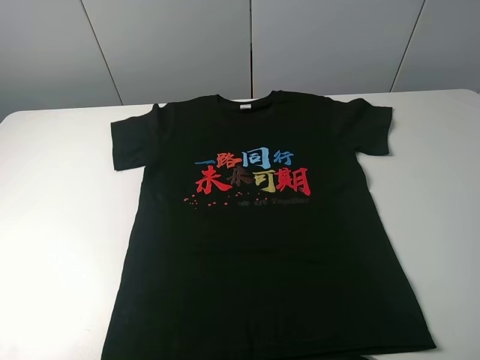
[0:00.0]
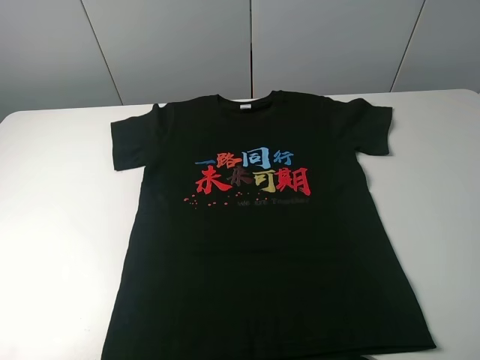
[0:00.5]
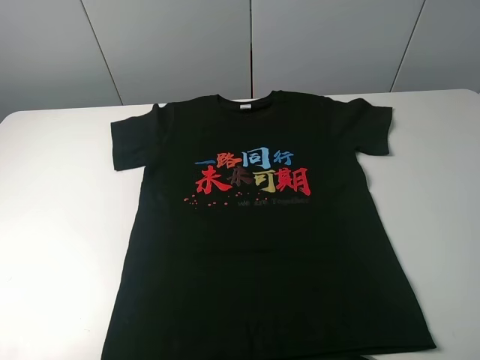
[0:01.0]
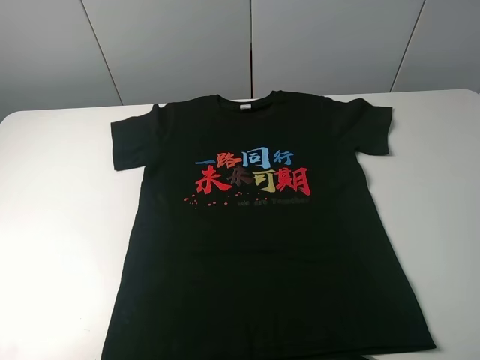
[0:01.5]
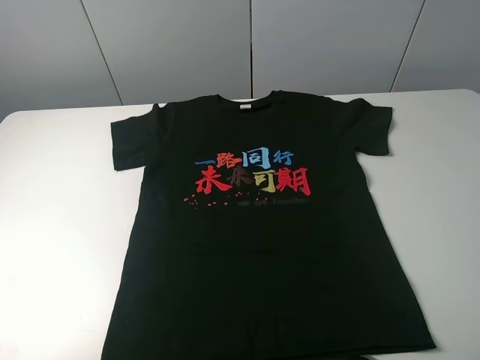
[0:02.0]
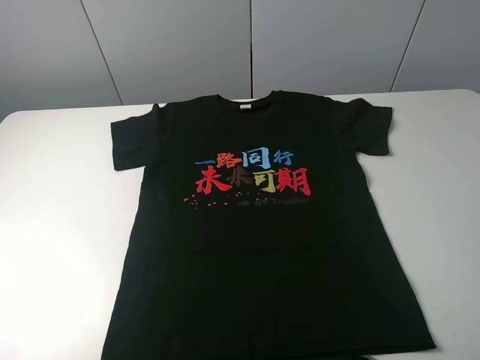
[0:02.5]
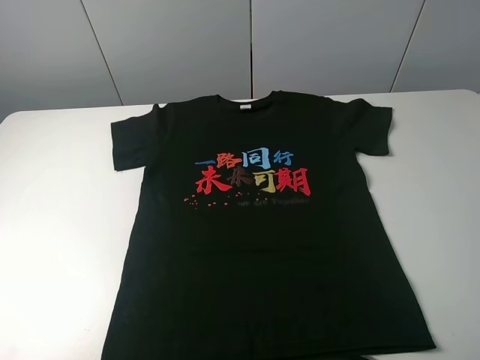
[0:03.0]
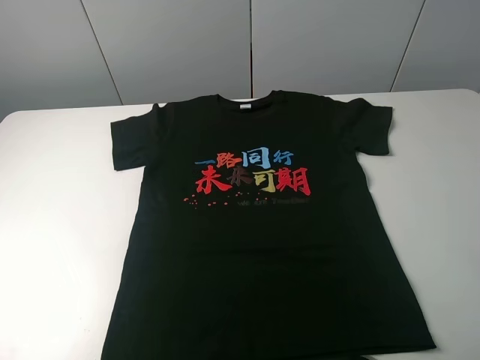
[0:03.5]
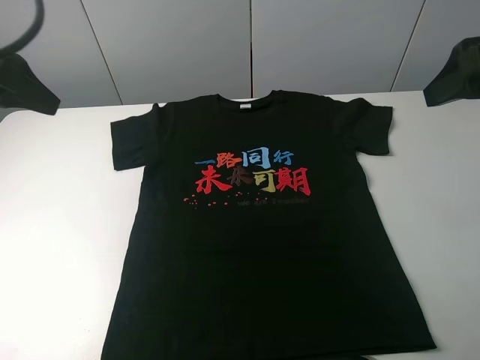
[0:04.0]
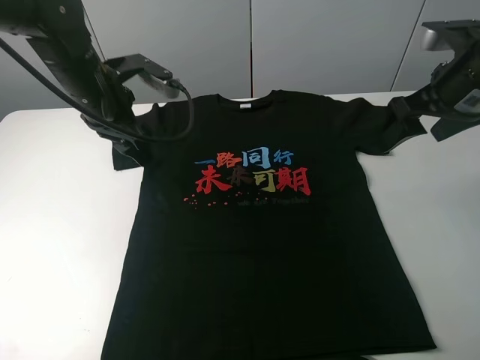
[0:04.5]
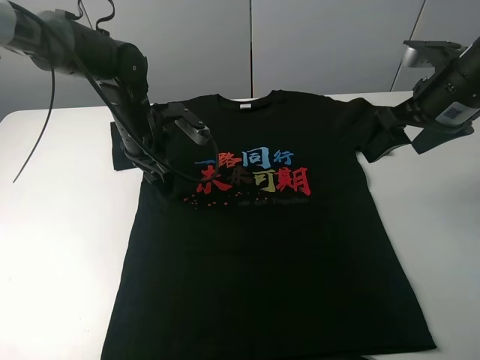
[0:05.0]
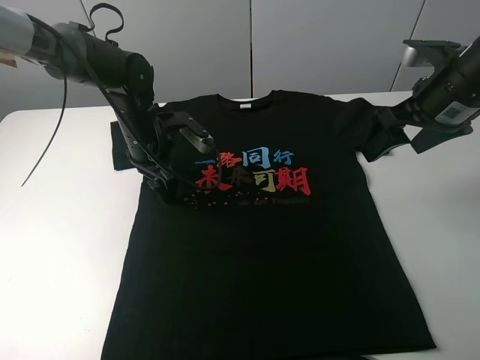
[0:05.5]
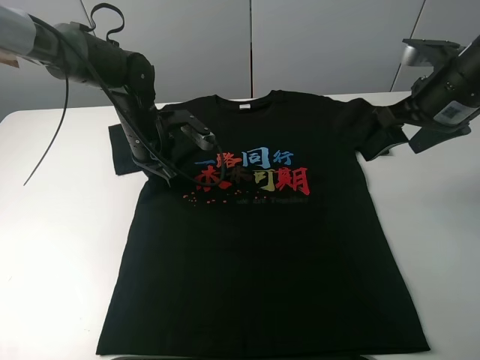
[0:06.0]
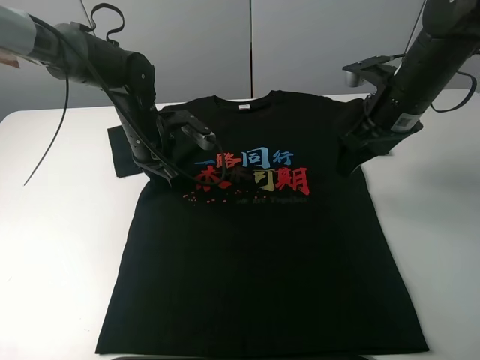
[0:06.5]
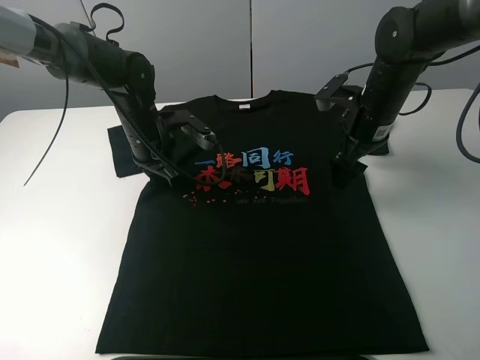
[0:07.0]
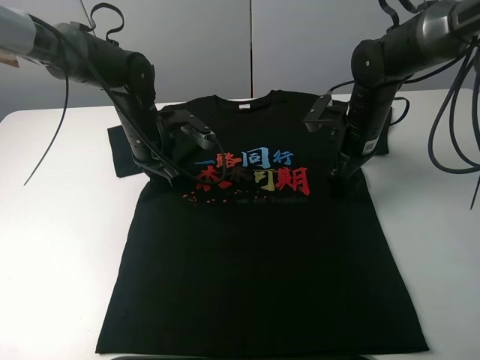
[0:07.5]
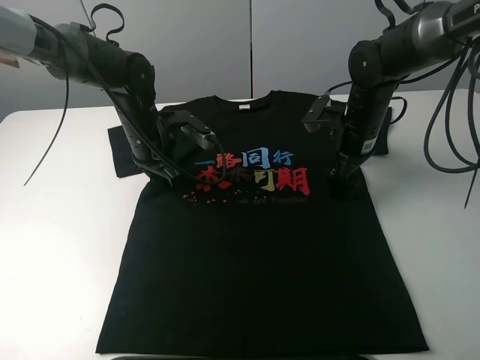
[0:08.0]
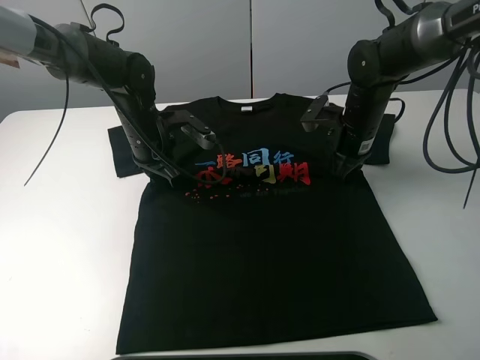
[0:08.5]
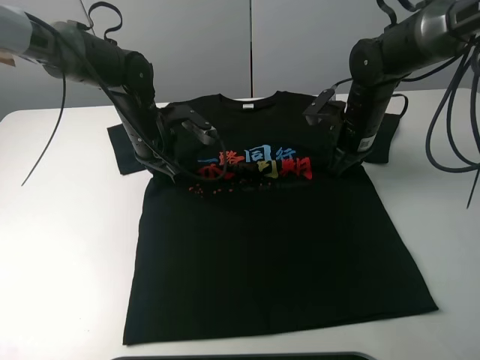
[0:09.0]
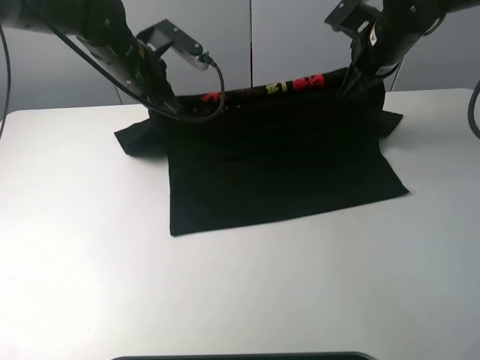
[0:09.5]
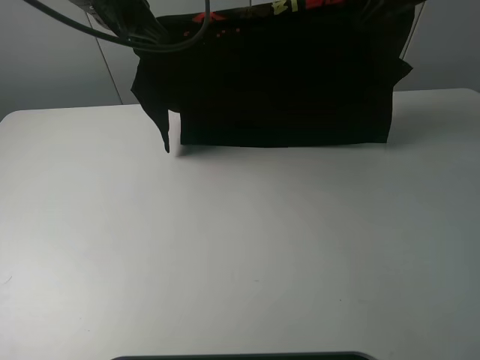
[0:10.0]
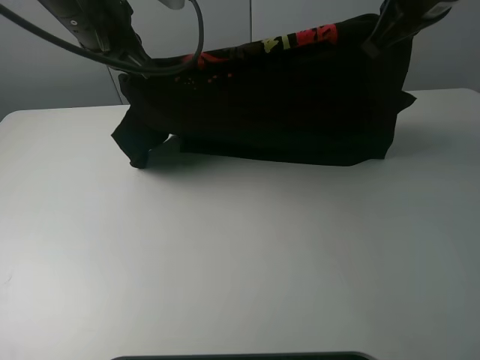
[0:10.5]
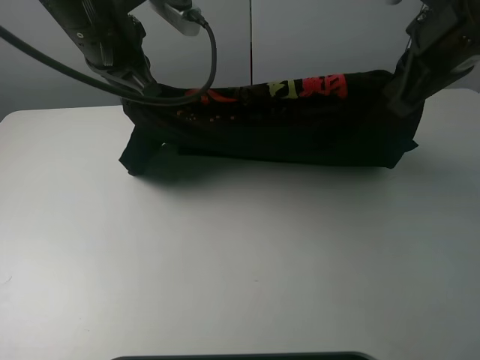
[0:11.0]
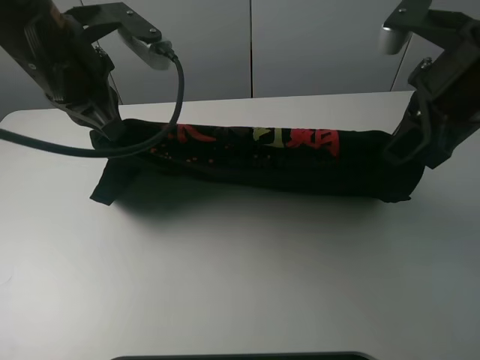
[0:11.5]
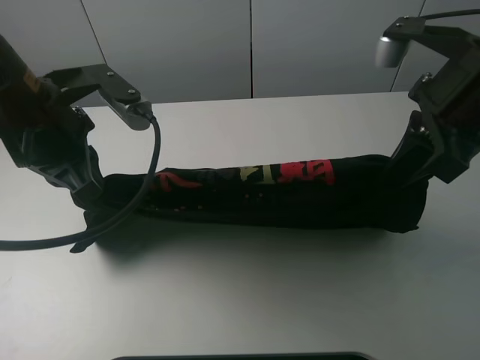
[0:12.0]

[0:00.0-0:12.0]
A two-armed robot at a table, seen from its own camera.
Task of the whole recording: fold the clothes on the table.
Step, 0.0 to 8.0 s: Lift the black T-shirt with the left gripper.
0.0 to 2.0 s: The two grippers keep their place.
2.0 to 4.0 s: The two grippers go some 25 cm forward.
4.0 to 6.0 s: The left gripper heads downward, to the right and forward, covering about 30 cm, and closes, while the right gripper travels downward and forward by roughly 10 cm.
6.0 to 8.0 s: The right gripper travels downward, forward and to the left by approximately 15 cm.
8.0 to 10.0 s: The two grippers go about 20 cm upward. The right gripper closes up.
10.0 to 12.0 s: The grippers both shift backward by roughly 15 cm.

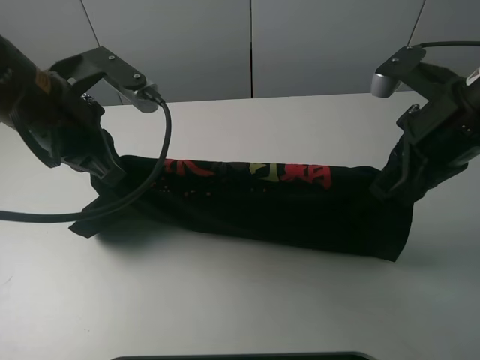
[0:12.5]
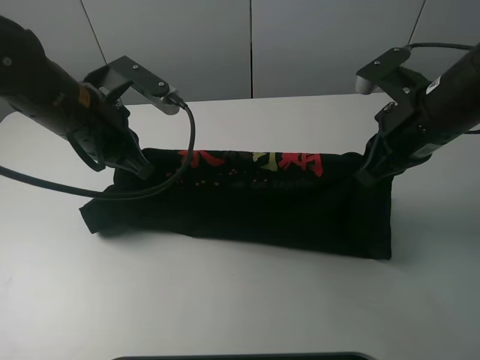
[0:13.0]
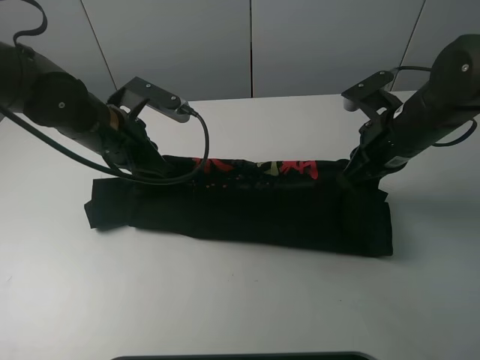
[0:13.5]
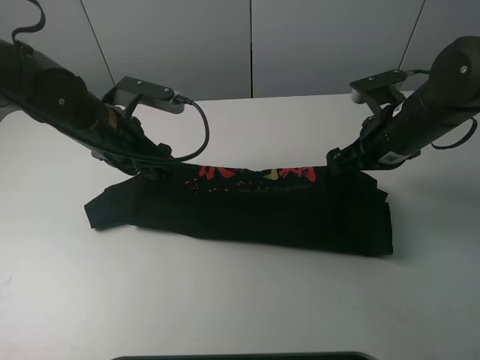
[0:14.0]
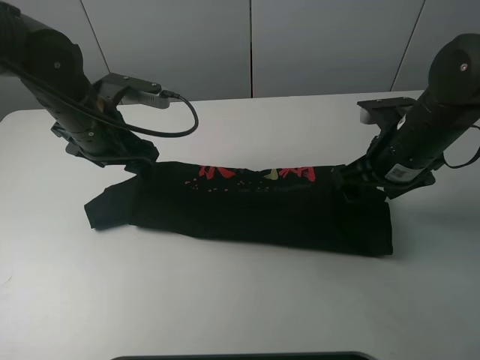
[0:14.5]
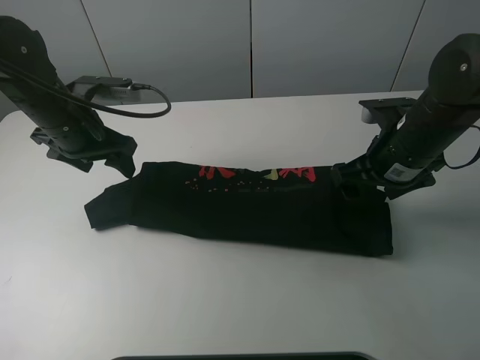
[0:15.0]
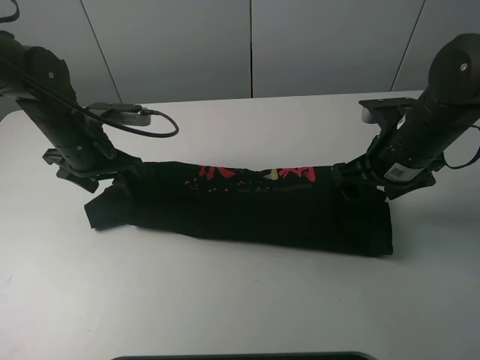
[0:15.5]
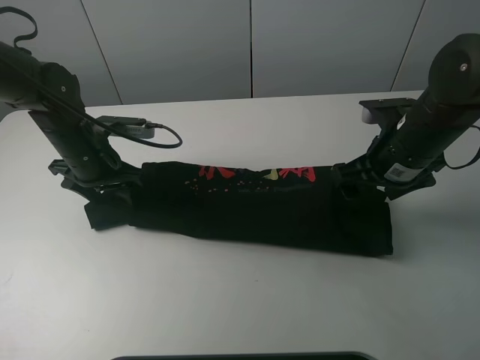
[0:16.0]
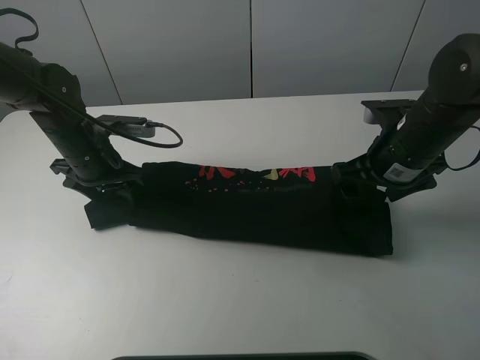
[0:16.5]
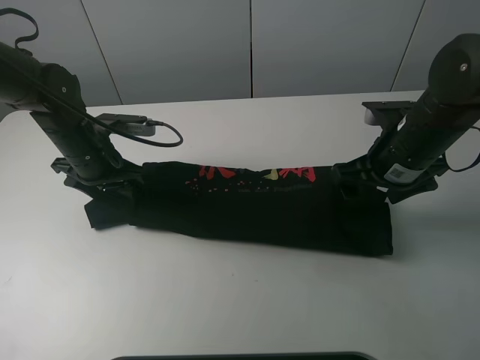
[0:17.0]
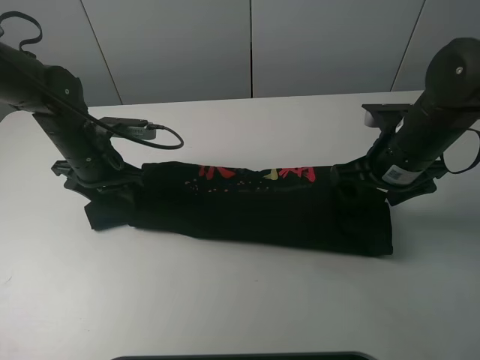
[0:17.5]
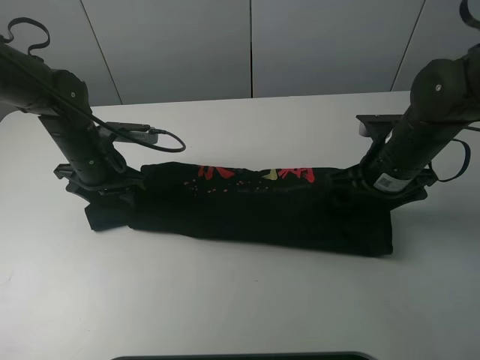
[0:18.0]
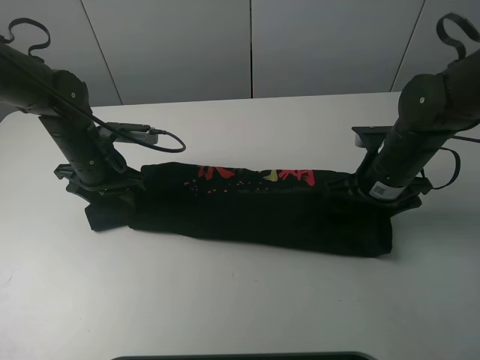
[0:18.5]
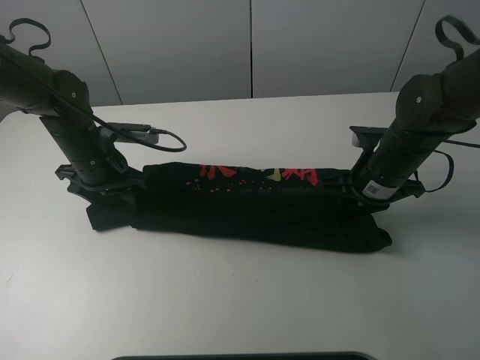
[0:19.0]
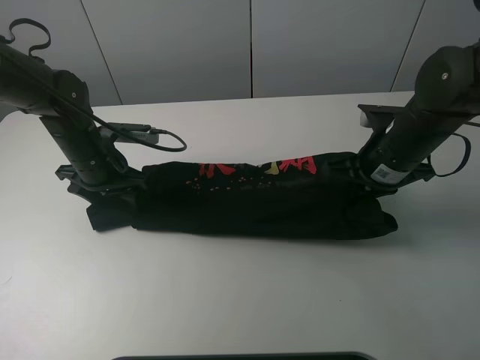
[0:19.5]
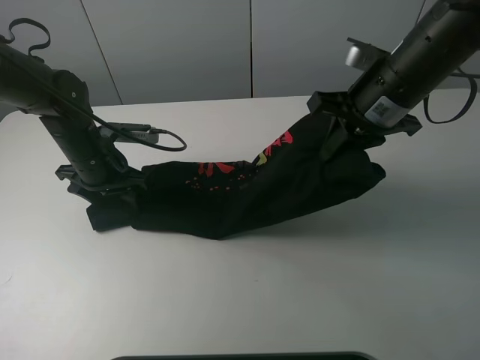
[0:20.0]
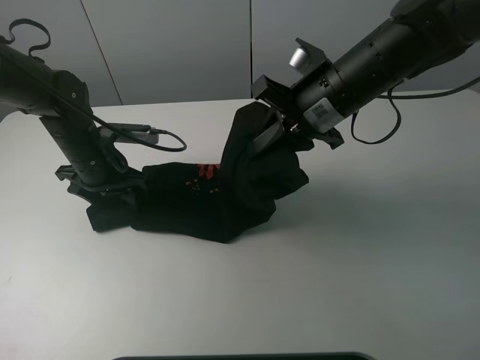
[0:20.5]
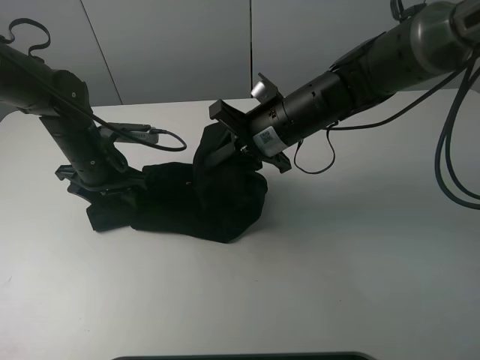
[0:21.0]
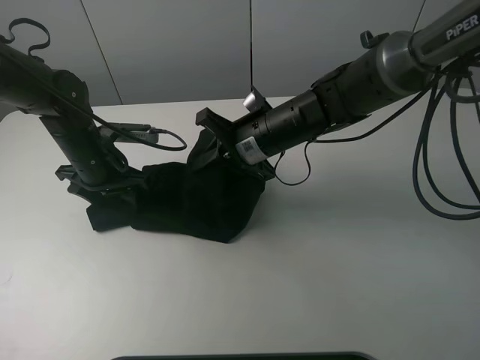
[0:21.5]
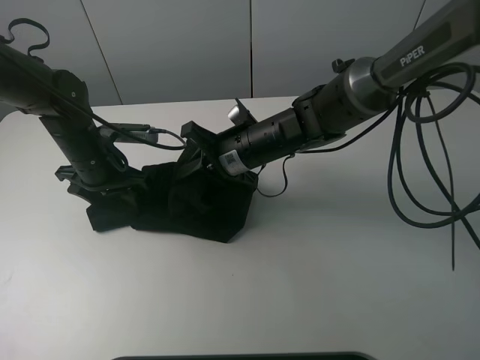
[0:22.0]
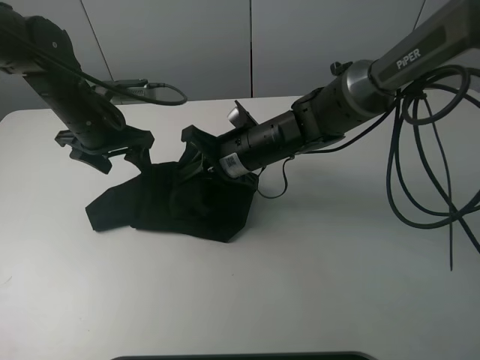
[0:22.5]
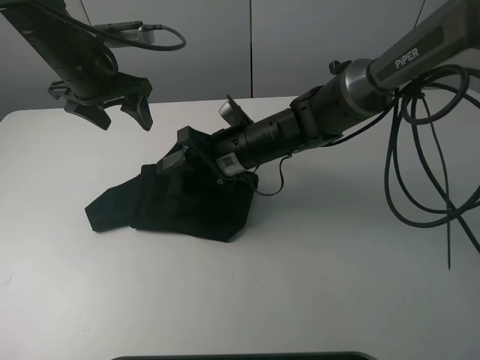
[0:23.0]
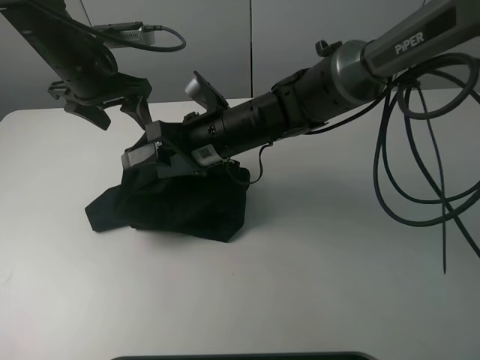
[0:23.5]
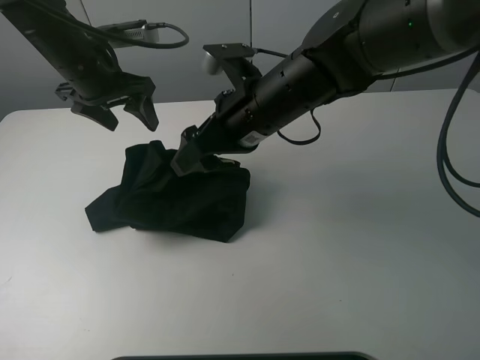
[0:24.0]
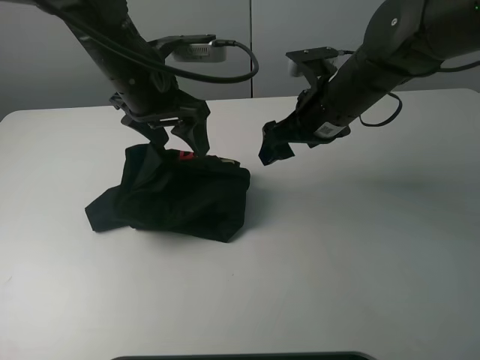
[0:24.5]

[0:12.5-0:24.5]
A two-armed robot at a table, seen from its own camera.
Task of the whole recording: fold the clothes on the table.
Step, 14.5 to 18.5 s: Grasp the black T-shirt with the right gripper.
Step, 19.0 to 24.0 s: Fold the black T-shirt from right to left with right gripper.
12.5 to 14.5 s: The left gripper travels forward and downward by about 10 cm, and opens. Meanwhile the right gripper moves downward, about 10 cm, and opens up.
14.5 to 16.5 s: The left gripper shifts about 5 cm downward.
16.5 to 18.5 s: The right gripper heads downward, covering about 5 cm.
18.5 to 20.5 s: The right gripper goes approximately 15 cm upward and to the left, and closes up.
20.5 to 22.5 s: The left gripper heads upward, covering roughly 5 cm. Meanwhile the right gripper goes about 15 cm downward and to the left.
22.5 to 24.5 s: Both grippers move to the right and upward, some 15 cm. The right gripper opens.

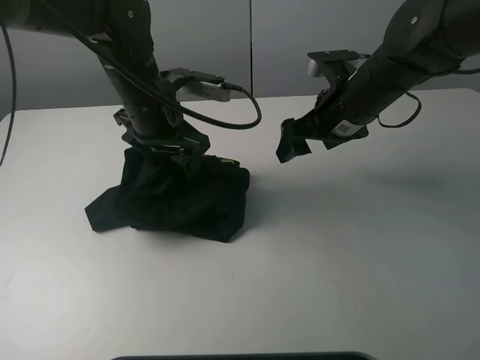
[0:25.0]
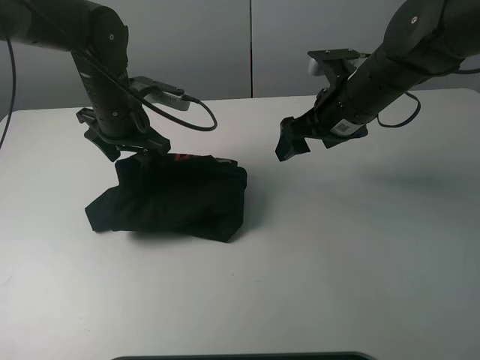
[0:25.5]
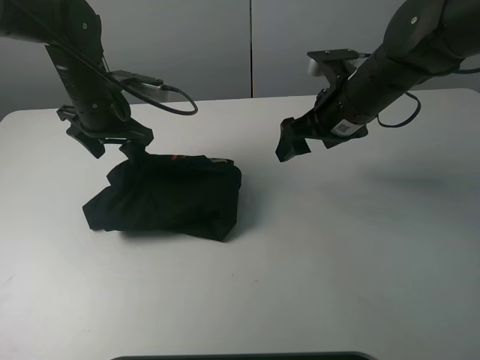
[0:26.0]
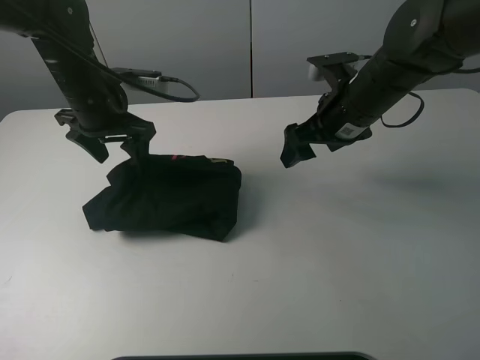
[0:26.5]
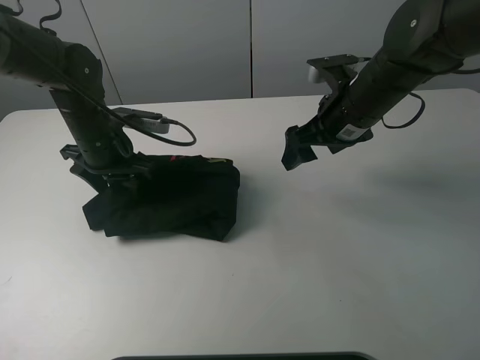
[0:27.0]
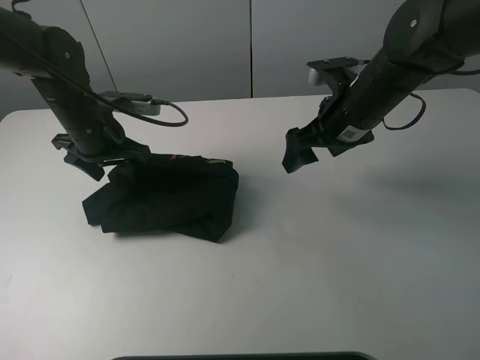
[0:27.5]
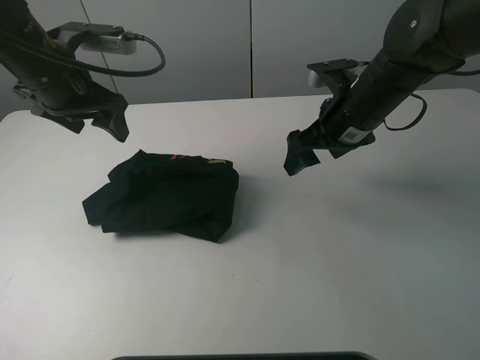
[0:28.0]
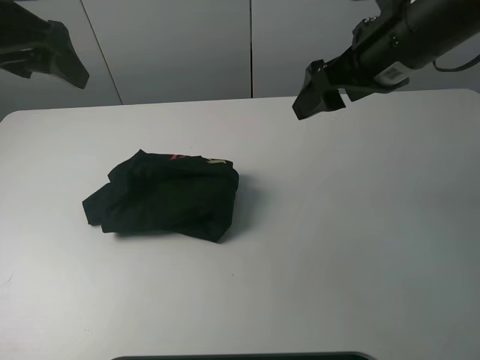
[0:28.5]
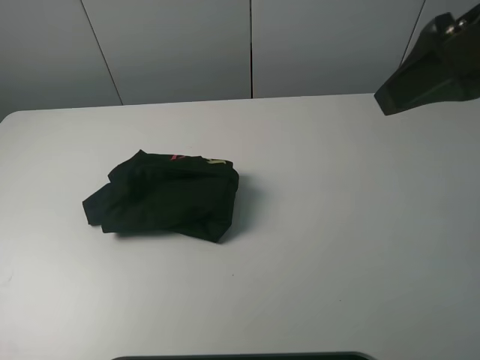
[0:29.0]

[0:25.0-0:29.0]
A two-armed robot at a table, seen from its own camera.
Task of the whole recording: fold the clothes on the table.
Step, 25.0 to 26.0 s: Use the left gripper to tidy up the clothes.
25.0 to 27.0 s: The left gripper is displaced to the left and downward by approximately 10 cm.
27.0 to 29.0 s: The right gripper shifts some 25 cm upward and backward. Meanwhile the left gripper shifts approximately 35 cm upward, backward and to the left.
